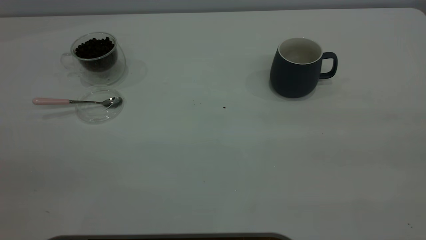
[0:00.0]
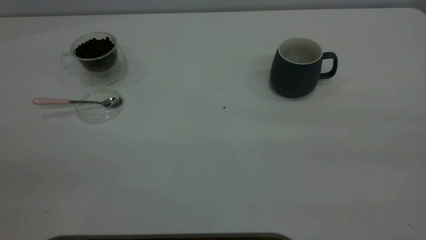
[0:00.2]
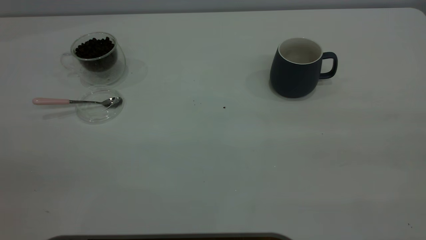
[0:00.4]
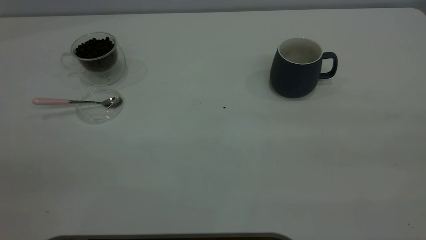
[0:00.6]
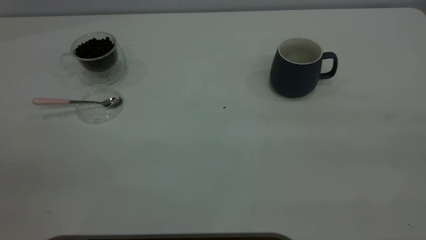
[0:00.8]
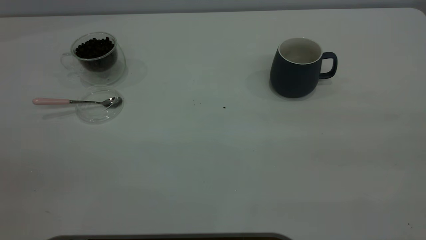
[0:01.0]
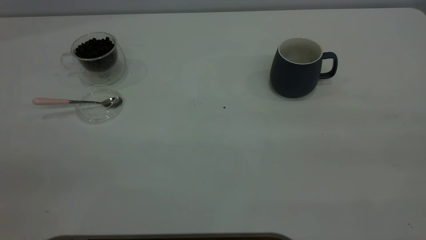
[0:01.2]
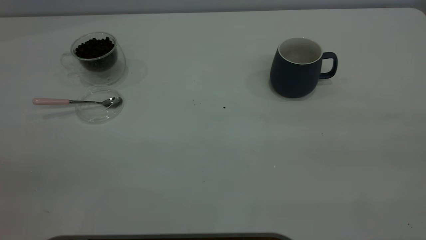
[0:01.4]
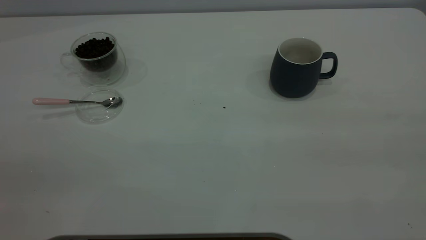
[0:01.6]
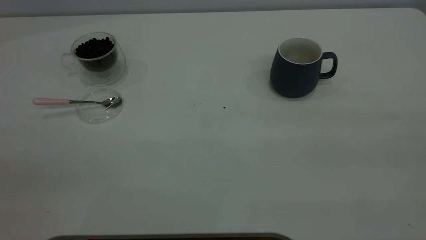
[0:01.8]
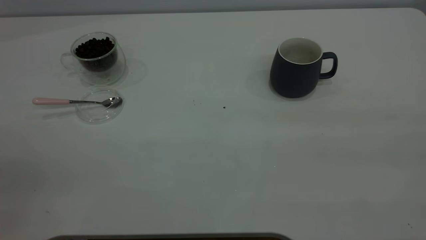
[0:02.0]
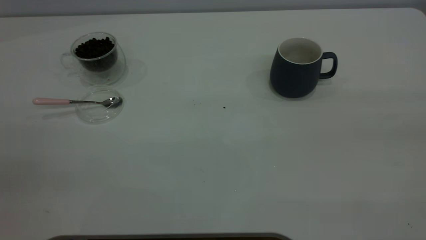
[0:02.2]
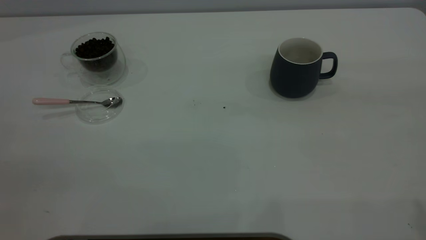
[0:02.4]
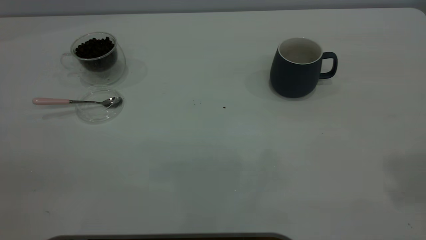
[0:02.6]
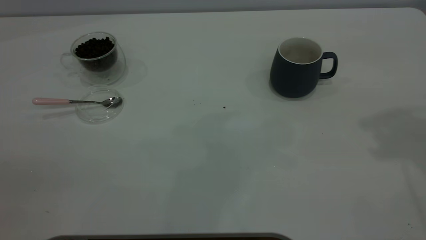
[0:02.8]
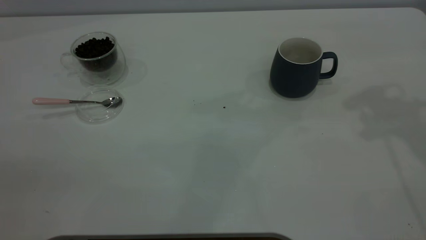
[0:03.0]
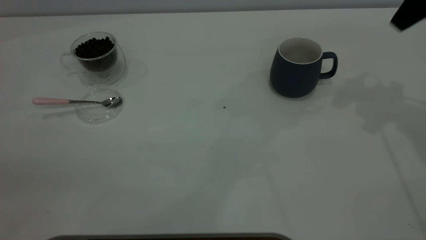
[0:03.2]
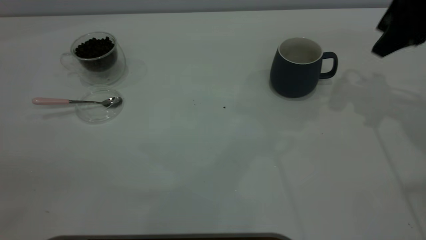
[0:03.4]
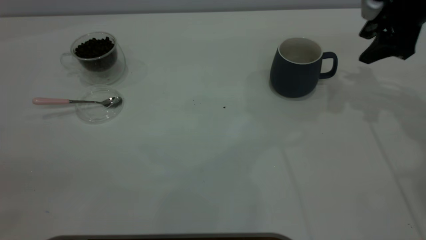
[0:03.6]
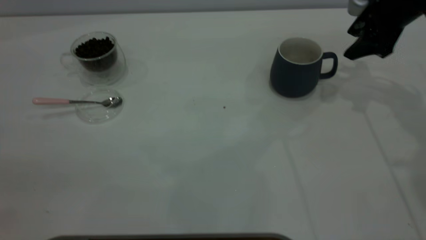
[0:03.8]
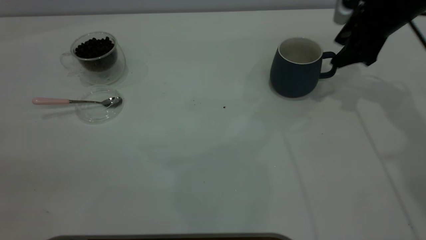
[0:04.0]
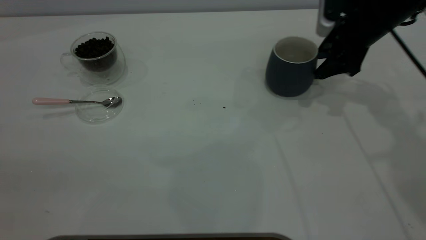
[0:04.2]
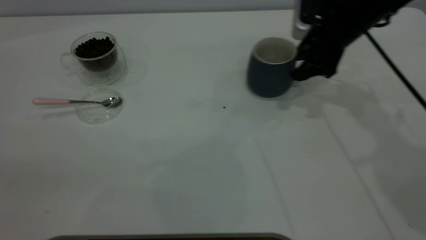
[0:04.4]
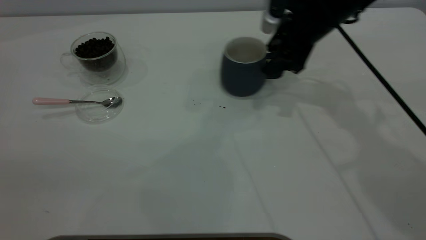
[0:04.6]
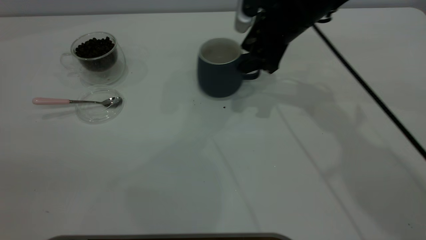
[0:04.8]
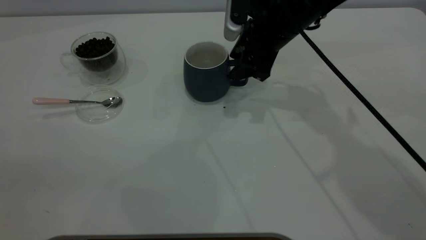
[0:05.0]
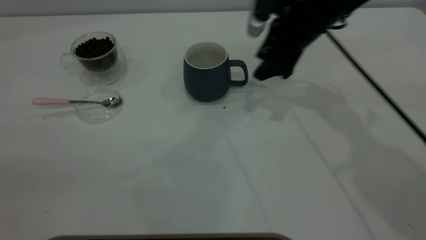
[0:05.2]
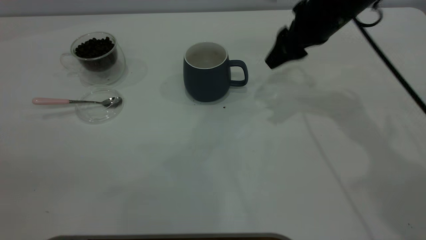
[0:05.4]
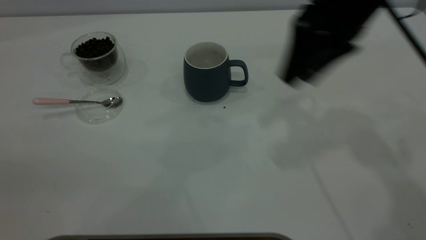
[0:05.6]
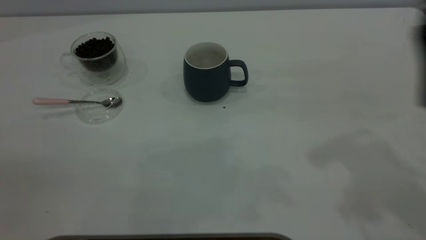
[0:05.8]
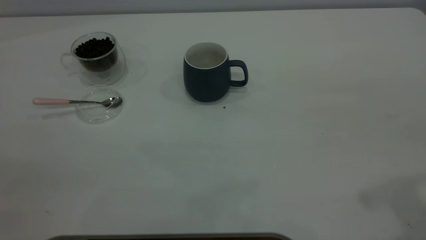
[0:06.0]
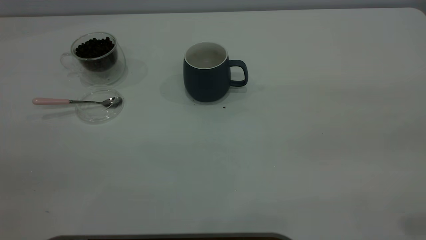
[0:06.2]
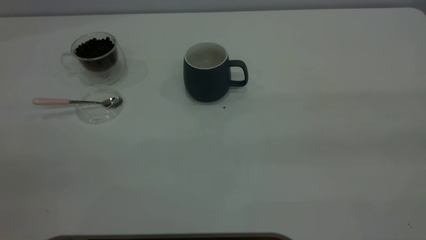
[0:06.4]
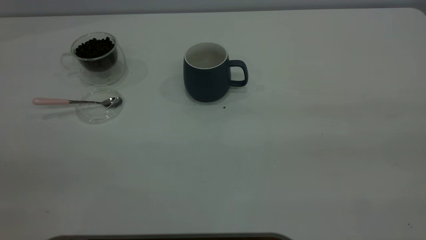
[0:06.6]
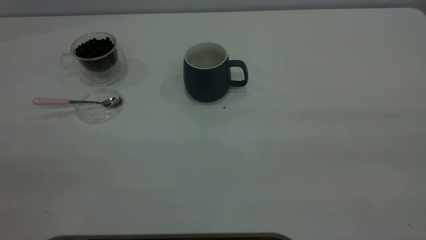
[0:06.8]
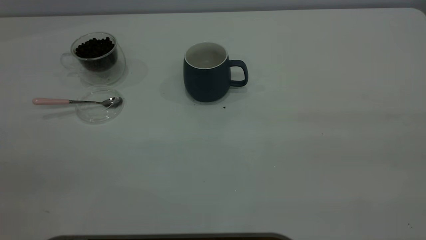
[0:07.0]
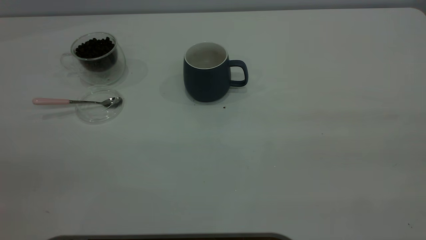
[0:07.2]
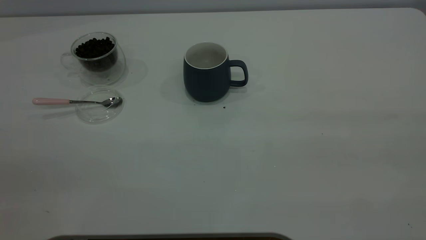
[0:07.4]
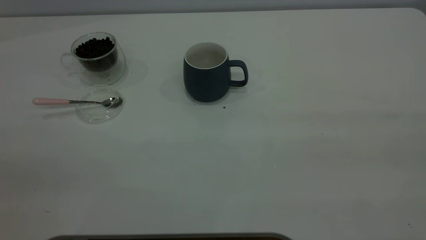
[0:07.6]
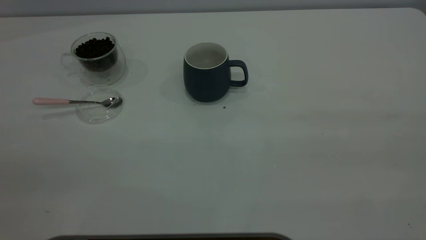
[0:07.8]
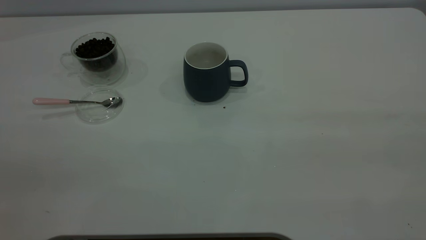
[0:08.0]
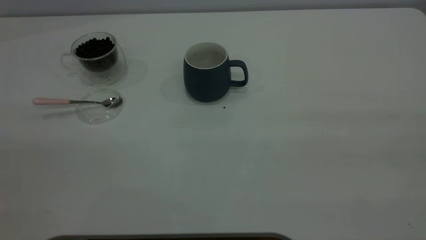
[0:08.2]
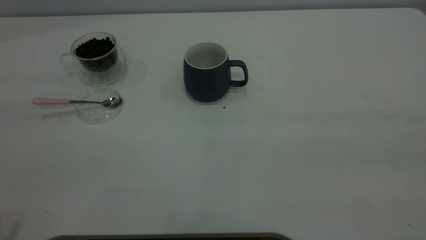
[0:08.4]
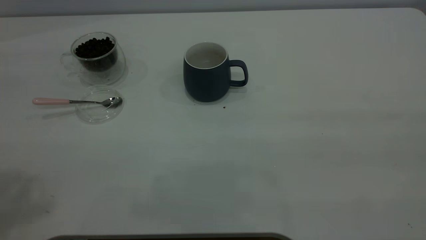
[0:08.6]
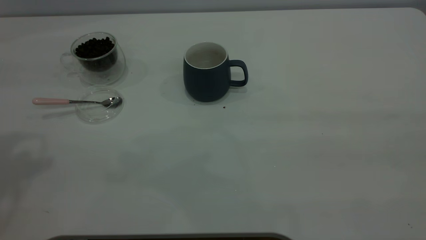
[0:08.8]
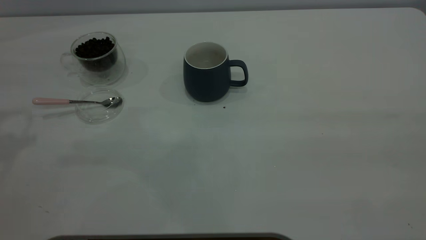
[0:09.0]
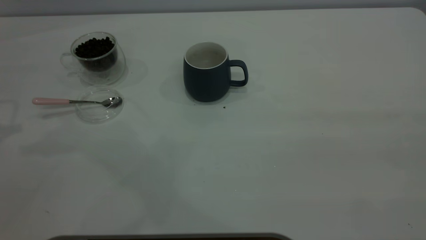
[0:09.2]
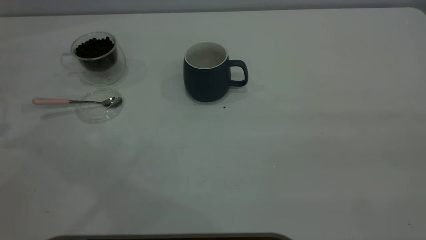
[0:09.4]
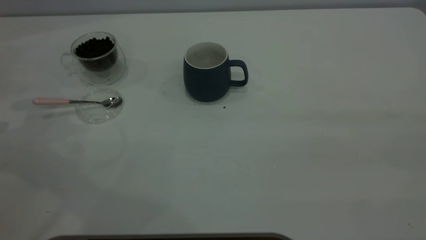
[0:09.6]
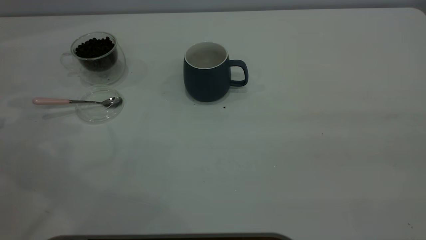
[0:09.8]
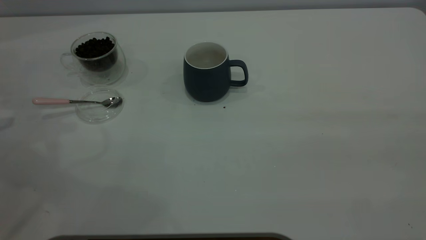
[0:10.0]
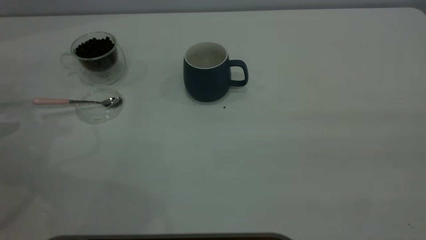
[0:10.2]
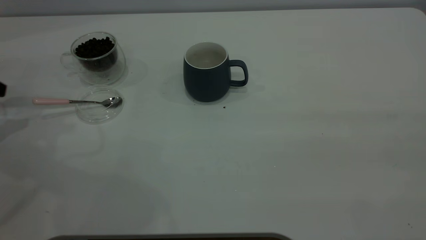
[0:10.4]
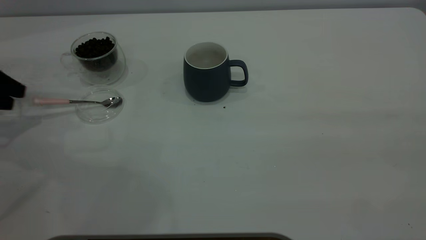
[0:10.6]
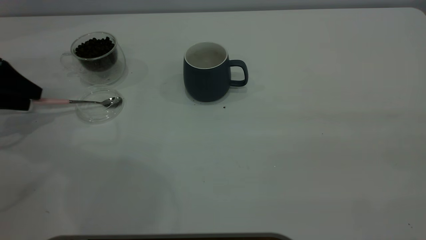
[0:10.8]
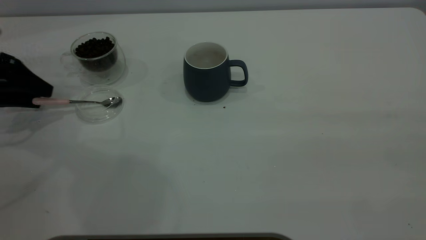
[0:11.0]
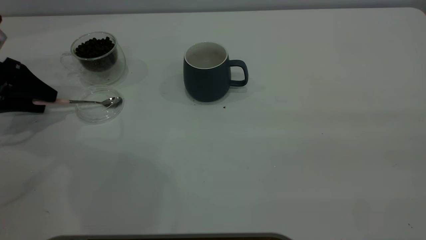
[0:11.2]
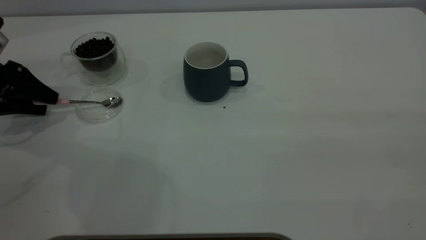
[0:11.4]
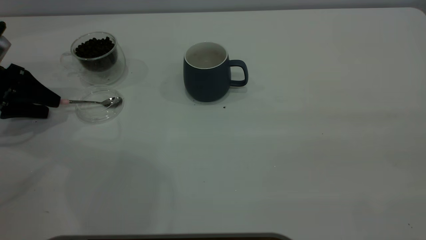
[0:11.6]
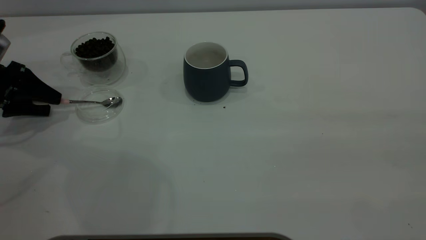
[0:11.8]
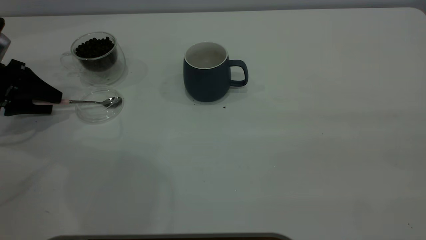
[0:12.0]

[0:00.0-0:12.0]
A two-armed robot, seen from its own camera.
Task of the whole recording: the right gripper place the grey cup in the center of the table, the left gripper take the pink spoon from the cup lid and scoop out the coffee beans from the coffee cup and put them into the grey cup, the left gripper put the spoon back into the cup lid.
Step, 0:00.0 to 0:05.2: Move the cup to the center of view.
0:00.0 to 0:01.6: The two grippers keep their place.
0:03.0 to 0:04.4: The right gripper travels downward, to the left and forward by approximately 20 cm.
0:04.4 to 0:06.0: The right gripper heads backward and upward, covering some 35 cm.
0:10.4 to 0:12.0: The left gripper goes approximately 5 cm to the right.

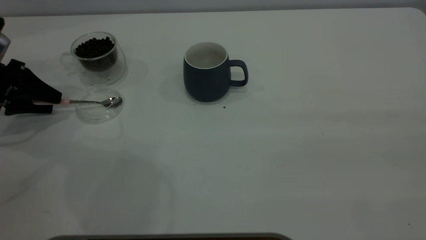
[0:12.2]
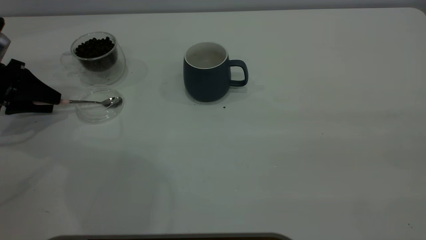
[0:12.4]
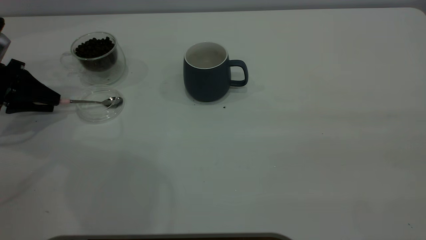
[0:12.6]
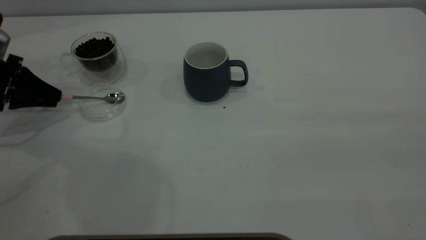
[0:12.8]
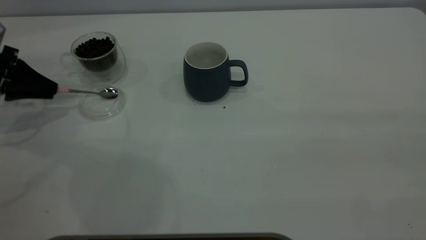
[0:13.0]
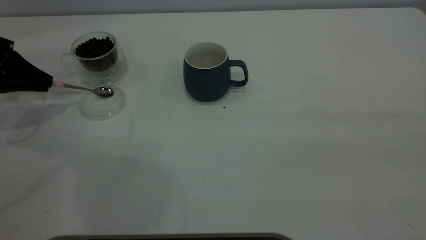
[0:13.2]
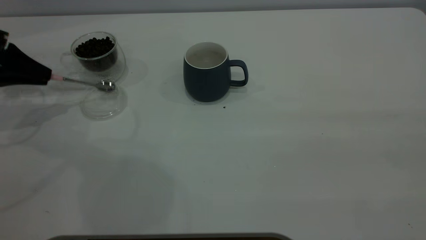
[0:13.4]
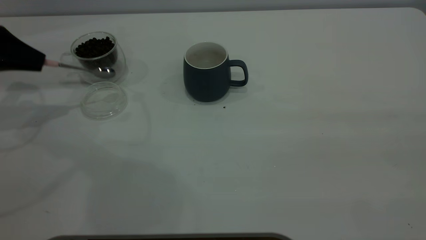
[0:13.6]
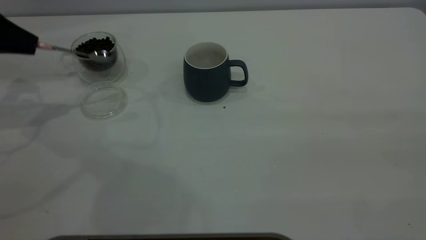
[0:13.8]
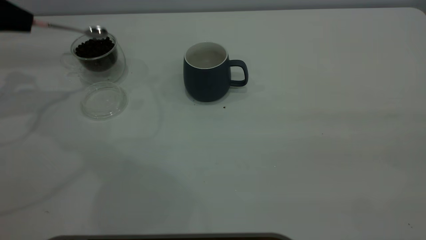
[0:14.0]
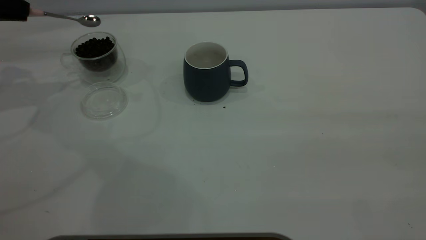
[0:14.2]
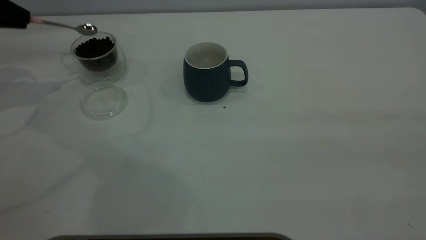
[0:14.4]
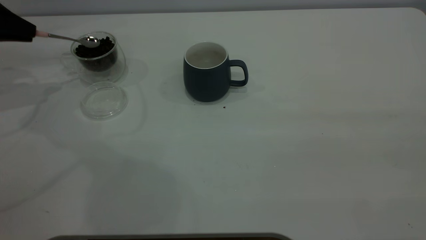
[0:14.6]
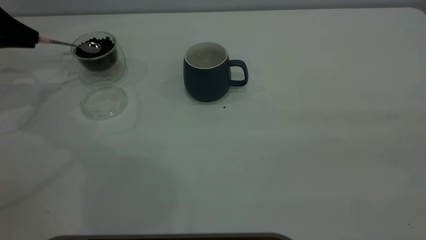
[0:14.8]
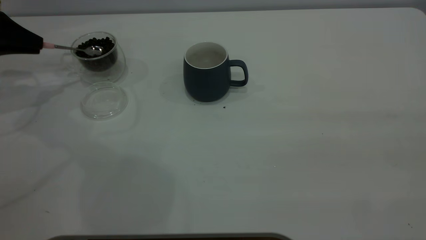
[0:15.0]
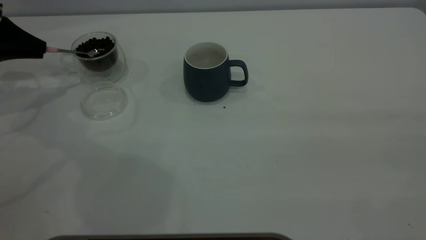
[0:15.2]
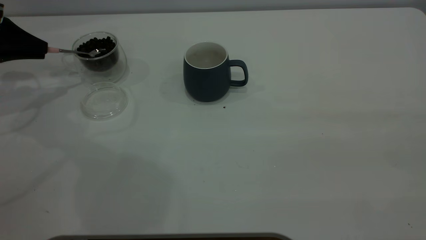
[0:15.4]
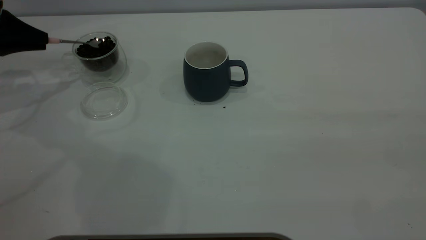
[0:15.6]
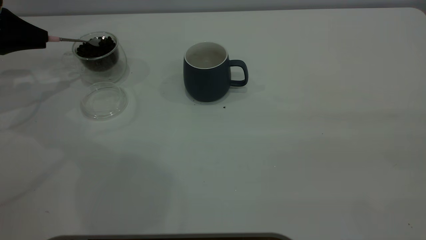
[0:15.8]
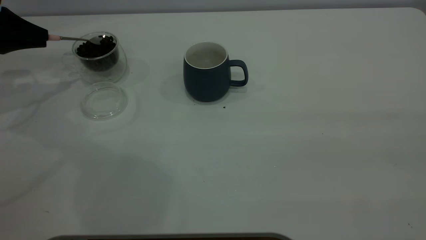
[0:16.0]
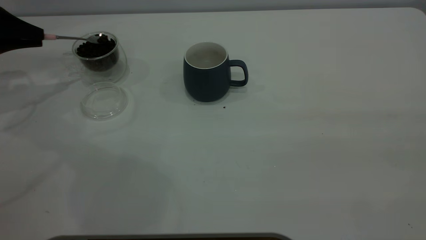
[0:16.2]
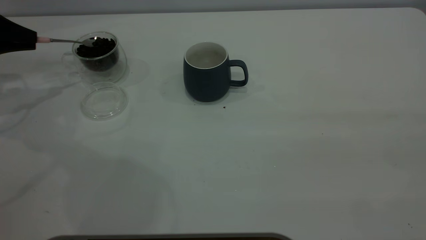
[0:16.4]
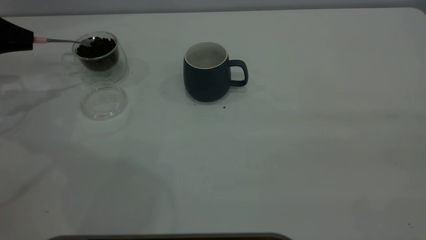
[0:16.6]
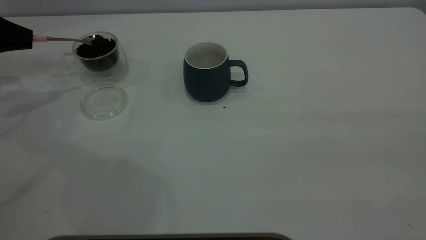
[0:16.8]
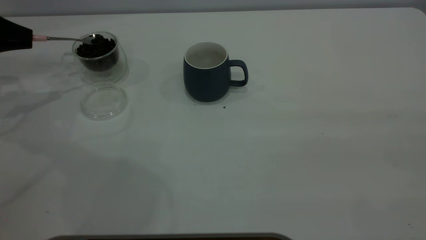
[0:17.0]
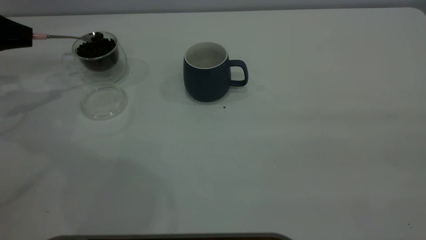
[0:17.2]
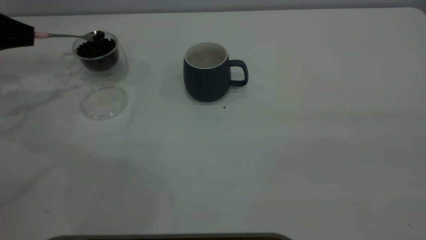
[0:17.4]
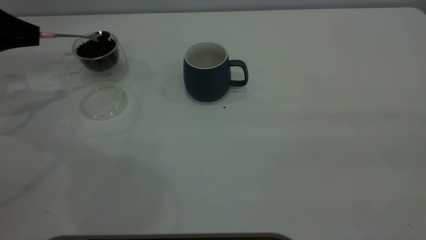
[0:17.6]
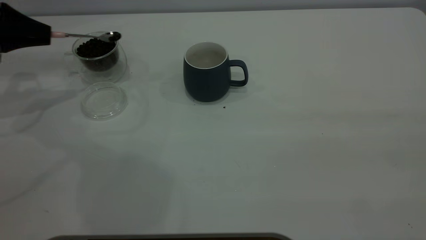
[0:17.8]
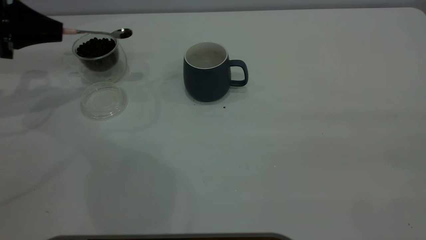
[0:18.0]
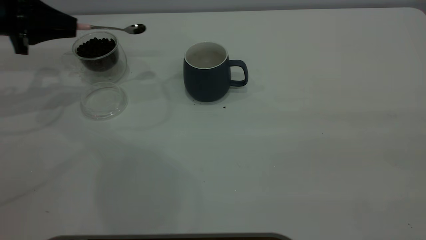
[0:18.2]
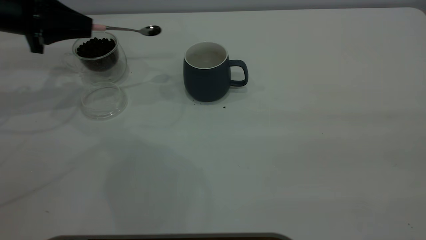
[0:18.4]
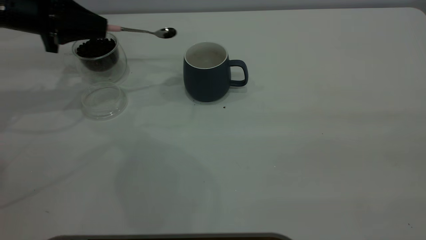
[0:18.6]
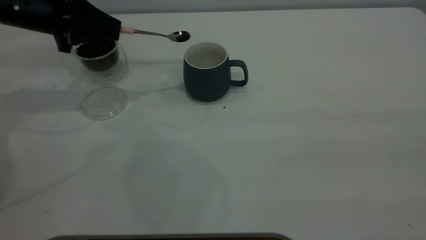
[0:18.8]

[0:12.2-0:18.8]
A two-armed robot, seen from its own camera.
Task of the whole recording: the right gripper place the grey cup in the center of the table, the left gripper take the pink spoon from the cup lid and scoop out the coffee beans from the coffee cup and put them into the grey cup, the left gripper put the spoon back into the cup lid.
0:12.2 to 0:13.8: The left gripper heads upward, covering about 10 cm, and closes its fingers.
0:13.8 to 0:15.4: The left gripper moves about 5 cm.
0:15.4 to 0:17.2: The grippers make only small movements.
0:17.2 to 0:18.8: The left gripper is displaced to the right by approximately 15 cm.
